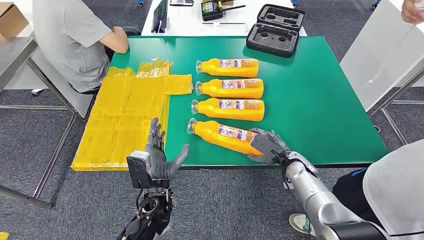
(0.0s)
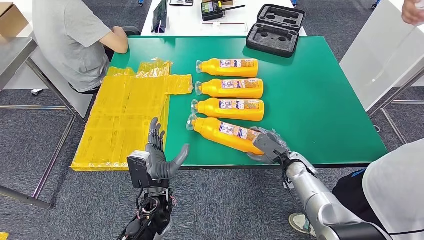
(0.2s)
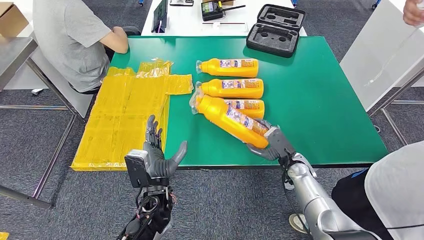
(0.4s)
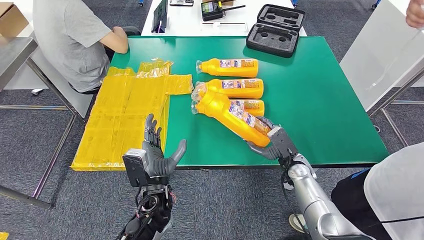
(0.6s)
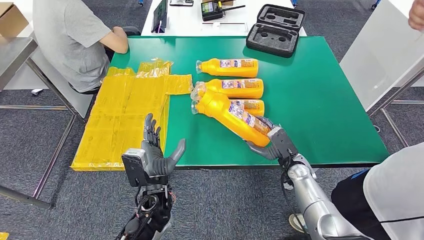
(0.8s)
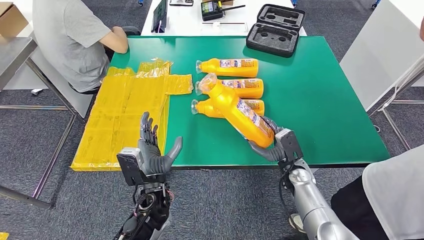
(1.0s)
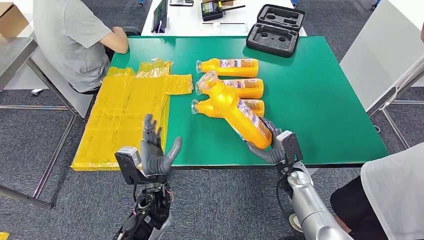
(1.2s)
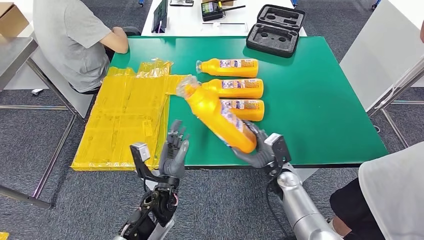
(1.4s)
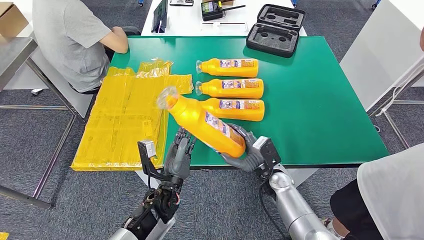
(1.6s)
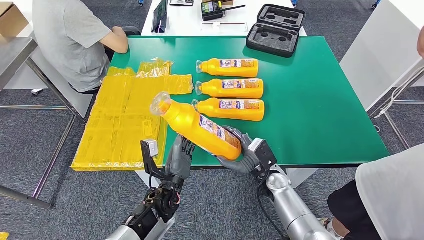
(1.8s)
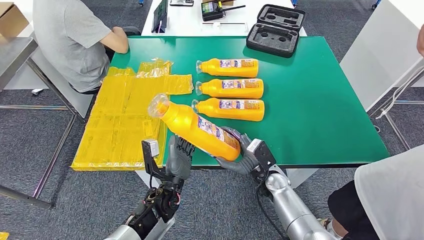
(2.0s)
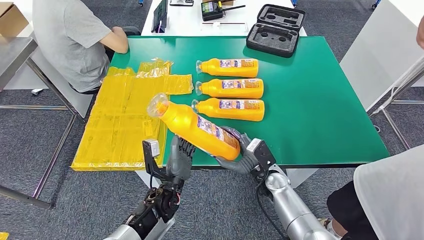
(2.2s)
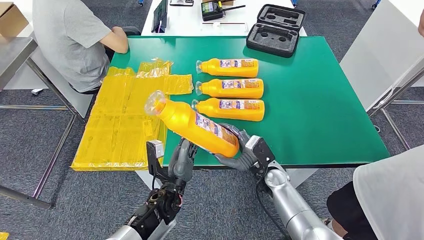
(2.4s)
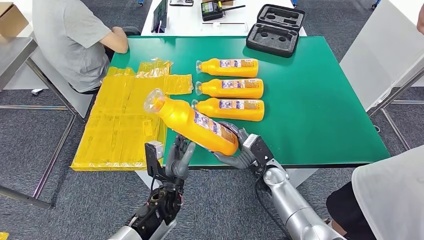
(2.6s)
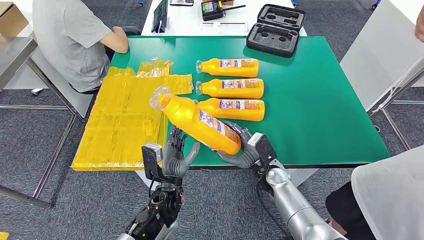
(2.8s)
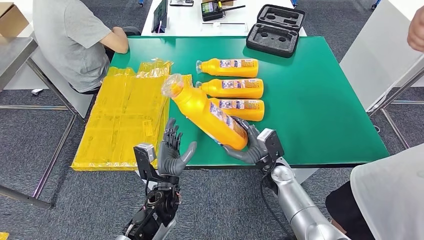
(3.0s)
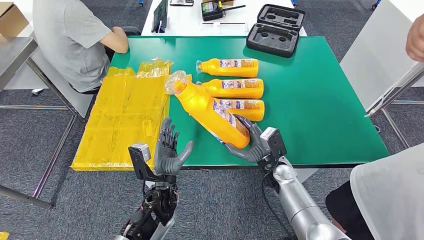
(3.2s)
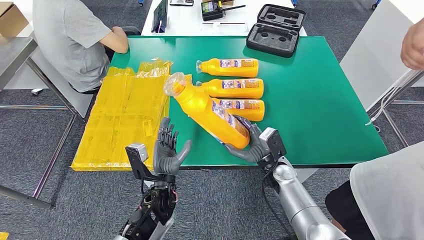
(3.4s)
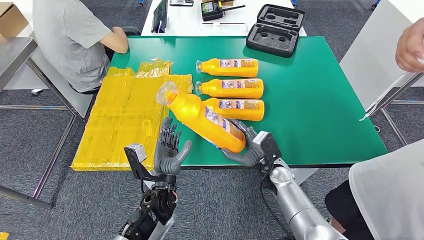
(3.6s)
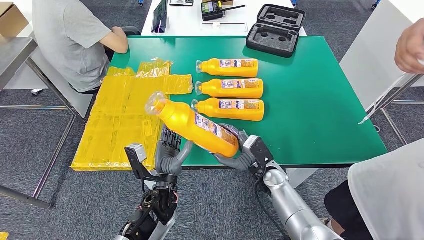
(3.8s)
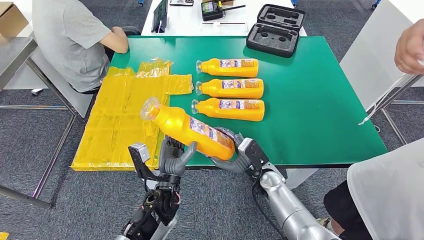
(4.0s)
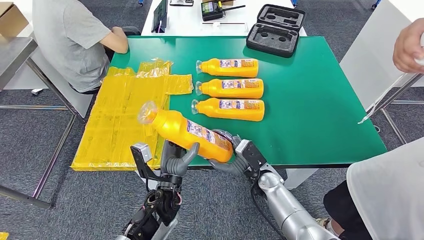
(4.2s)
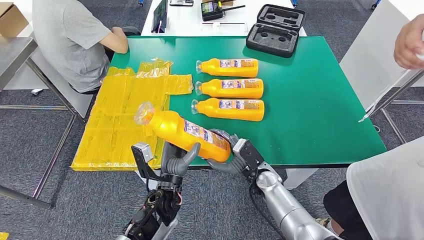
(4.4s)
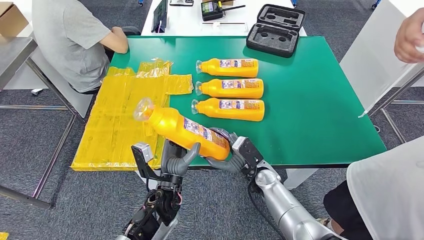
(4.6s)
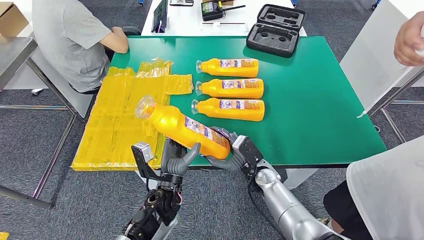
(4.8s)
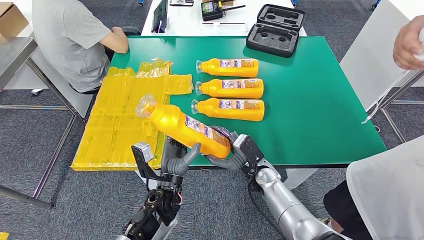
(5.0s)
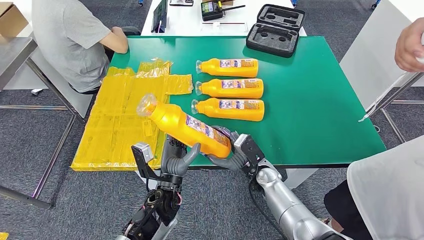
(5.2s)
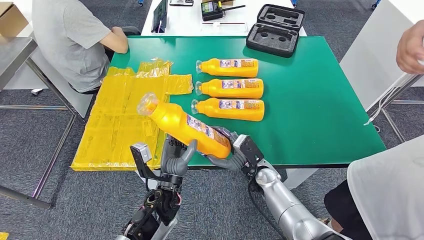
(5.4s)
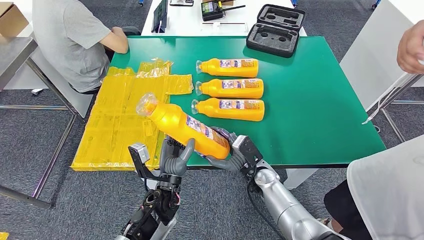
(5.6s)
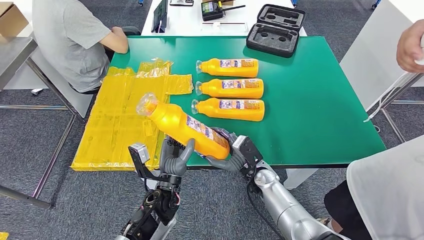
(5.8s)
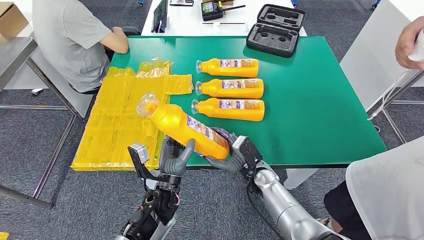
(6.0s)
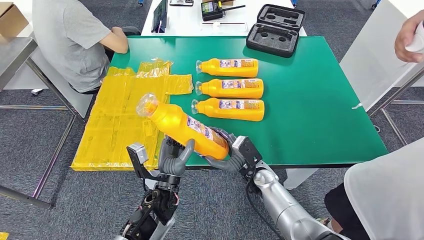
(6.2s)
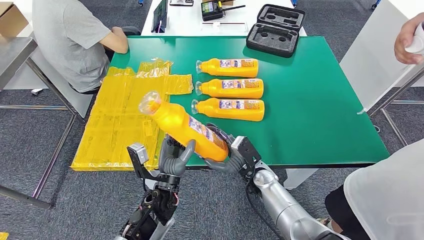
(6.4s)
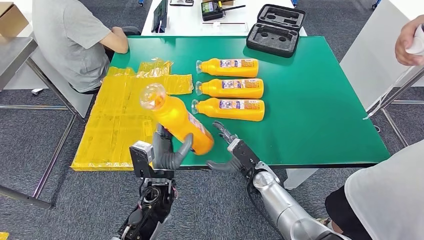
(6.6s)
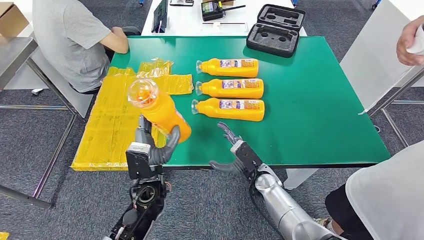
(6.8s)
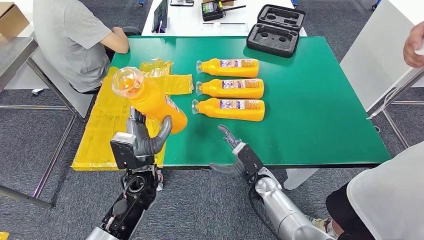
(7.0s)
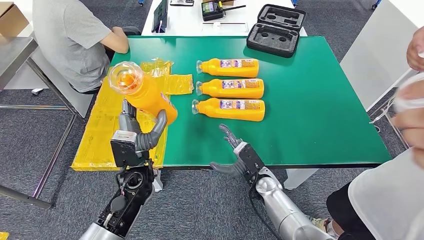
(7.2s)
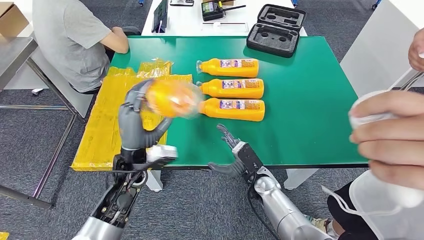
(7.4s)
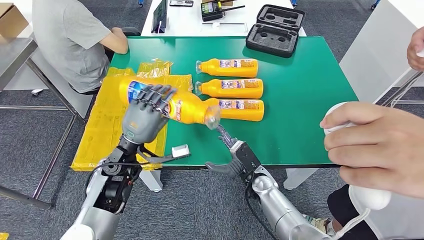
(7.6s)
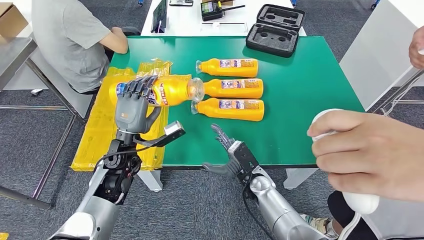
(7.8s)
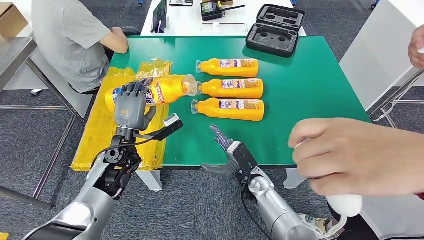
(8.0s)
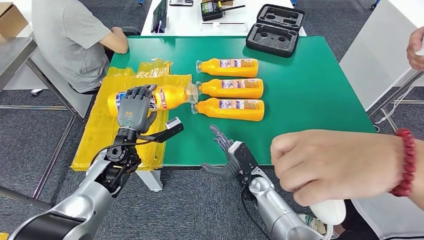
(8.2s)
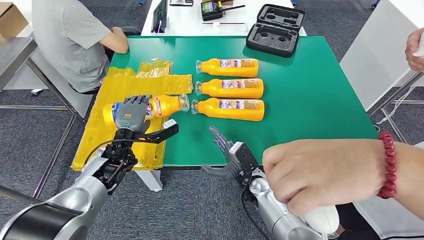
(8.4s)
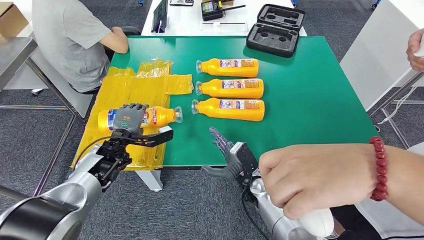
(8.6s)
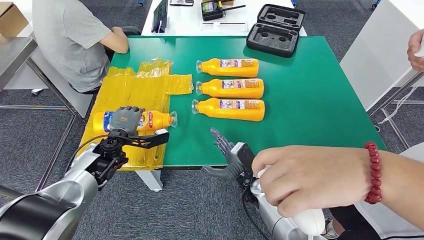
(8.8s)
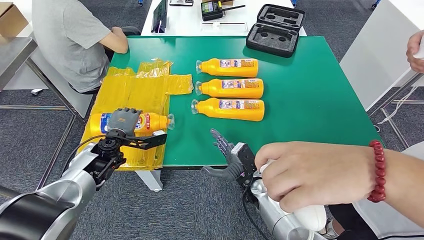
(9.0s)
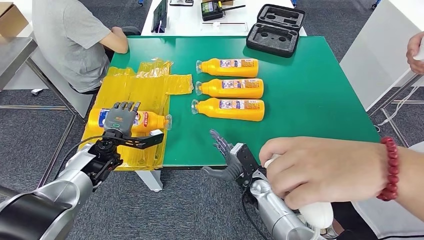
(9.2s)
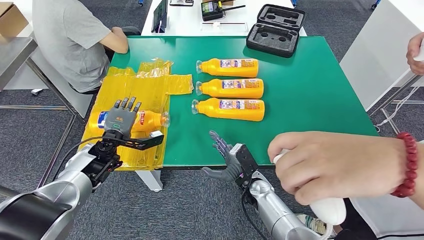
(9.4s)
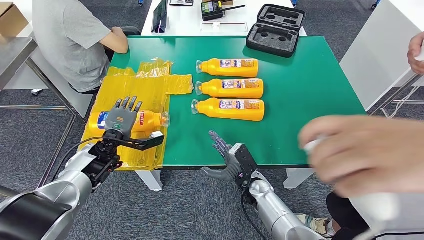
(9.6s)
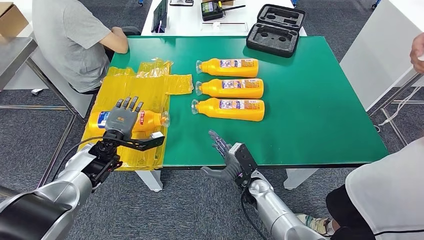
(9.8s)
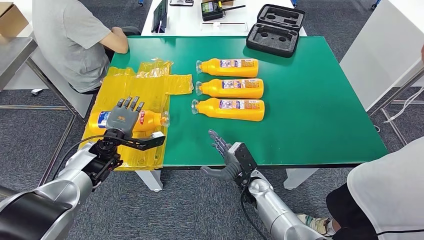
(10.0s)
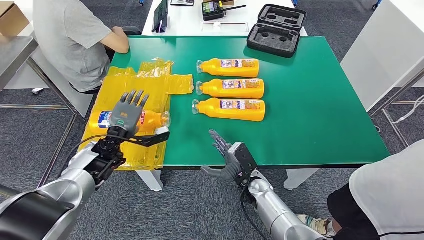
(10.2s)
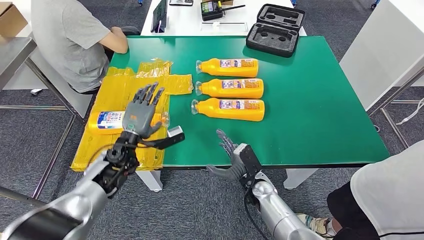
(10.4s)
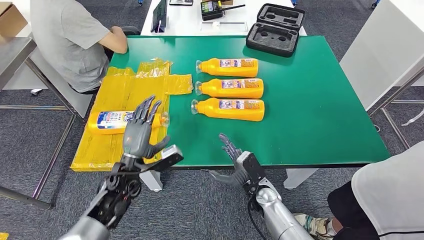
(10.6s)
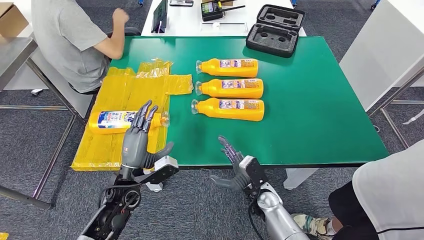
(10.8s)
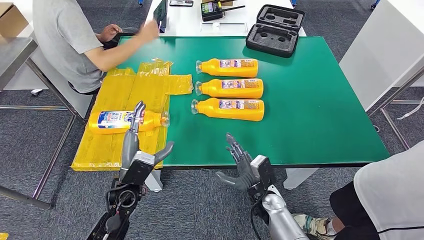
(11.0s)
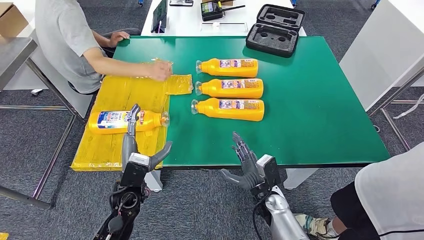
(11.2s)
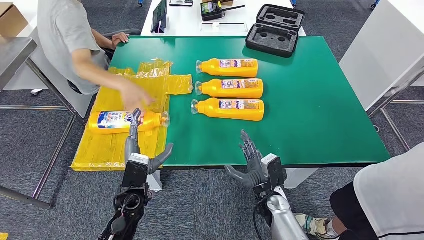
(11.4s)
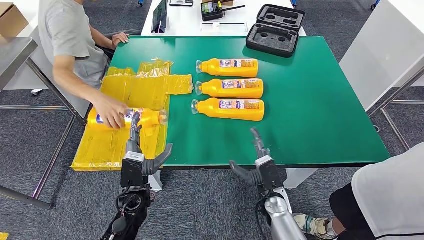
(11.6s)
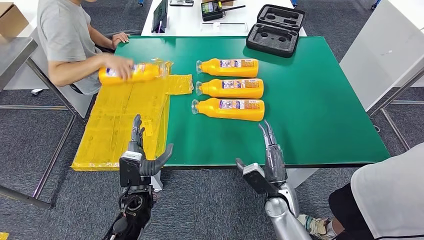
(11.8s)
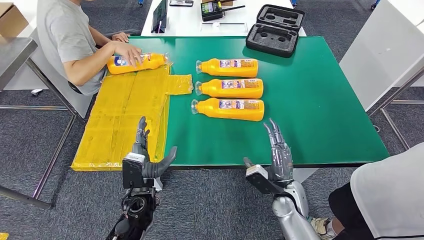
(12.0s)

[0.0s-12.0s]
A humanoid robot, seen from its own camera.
Step, 0.0s to 1.8s: Take the fast-moving consumer goods bottle from the table.
Step, 2.0s to 9.0s: Flip the fast-moving consumer goods bottle to the front side.
1.6s to 4.4s: There are only small adjustments of the hands.
4.4s to 6.0s: Both hands stay put.

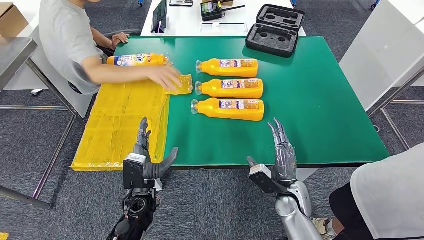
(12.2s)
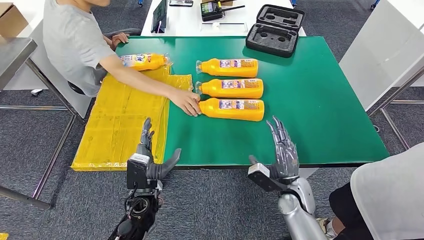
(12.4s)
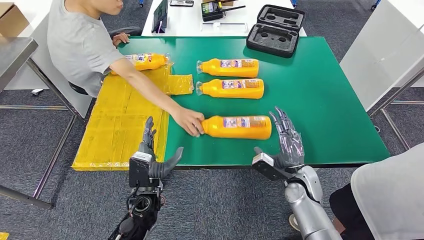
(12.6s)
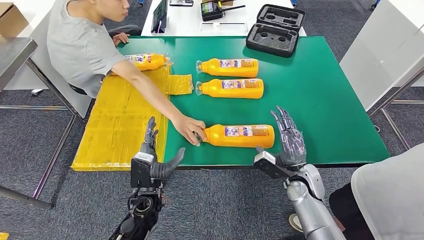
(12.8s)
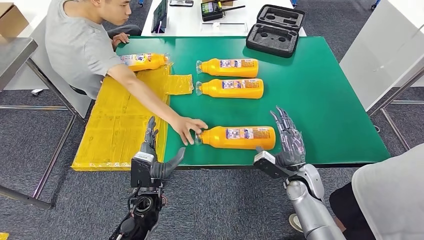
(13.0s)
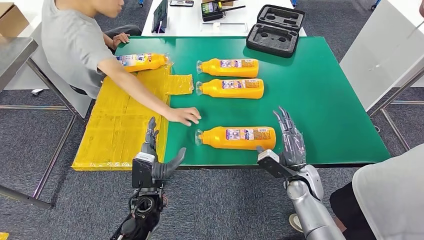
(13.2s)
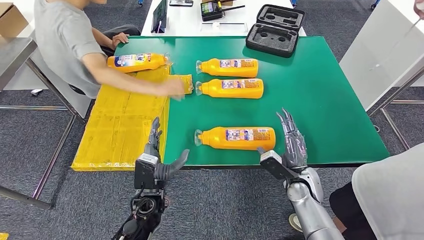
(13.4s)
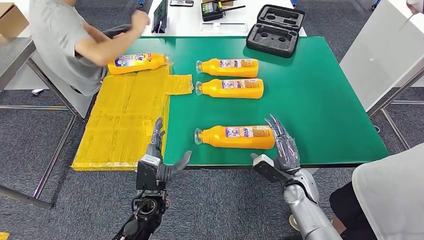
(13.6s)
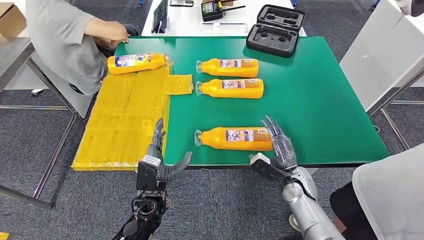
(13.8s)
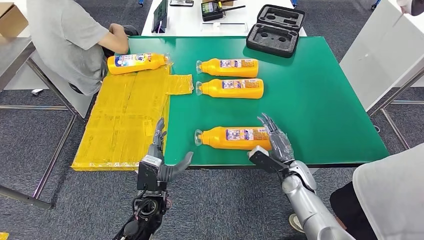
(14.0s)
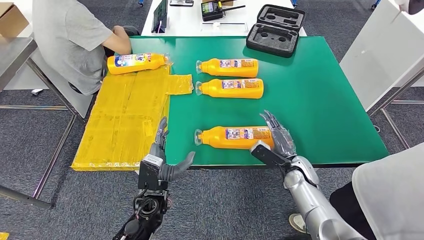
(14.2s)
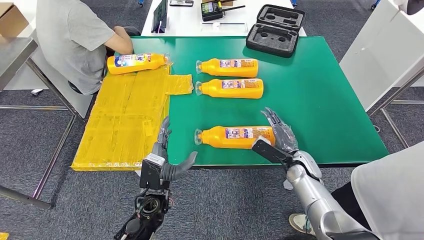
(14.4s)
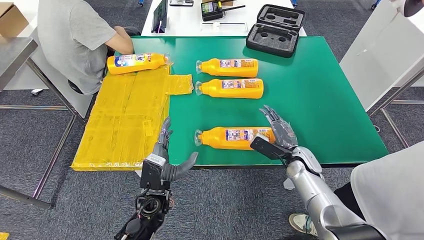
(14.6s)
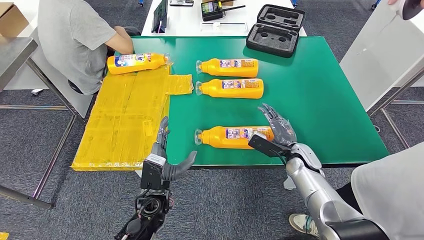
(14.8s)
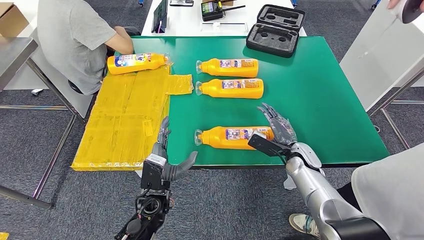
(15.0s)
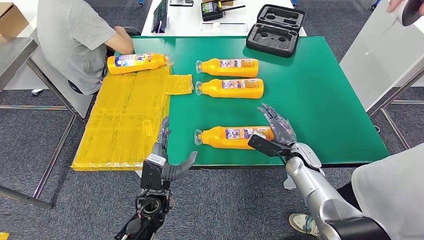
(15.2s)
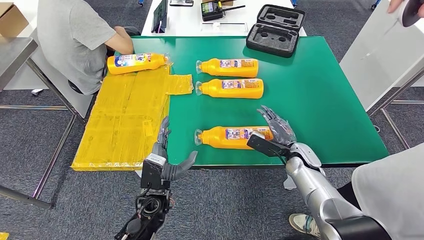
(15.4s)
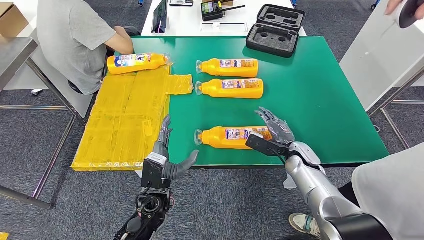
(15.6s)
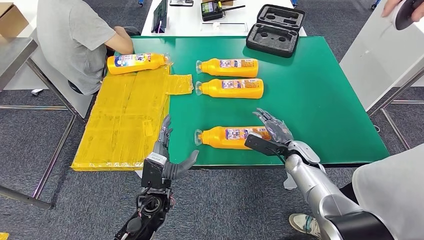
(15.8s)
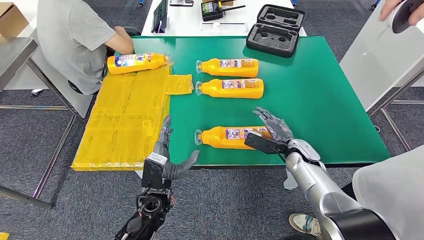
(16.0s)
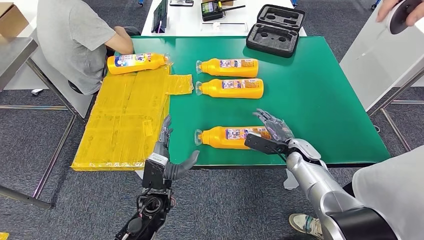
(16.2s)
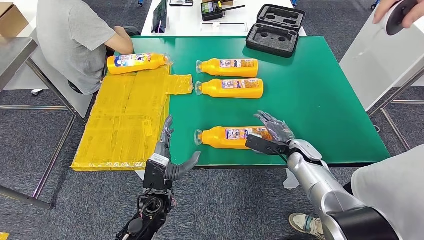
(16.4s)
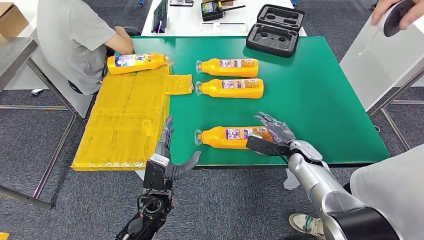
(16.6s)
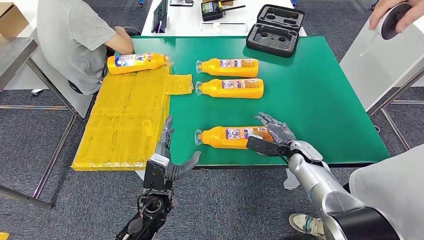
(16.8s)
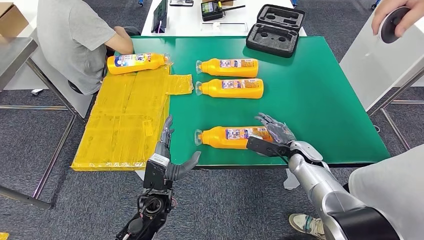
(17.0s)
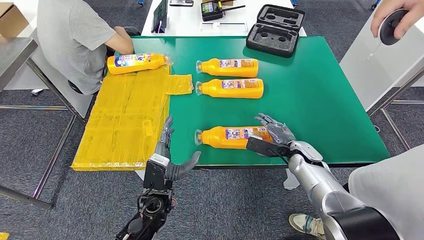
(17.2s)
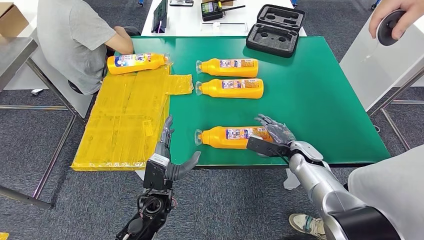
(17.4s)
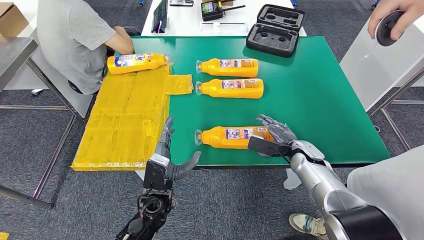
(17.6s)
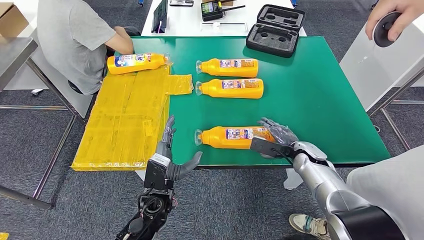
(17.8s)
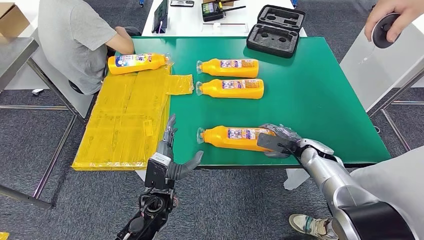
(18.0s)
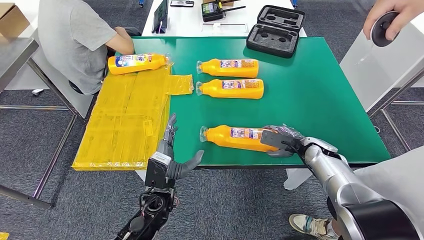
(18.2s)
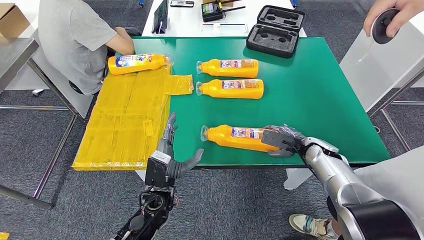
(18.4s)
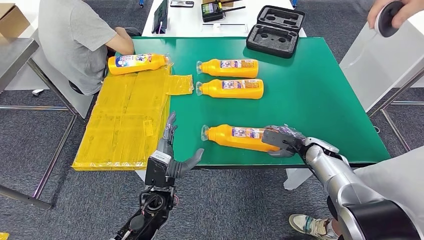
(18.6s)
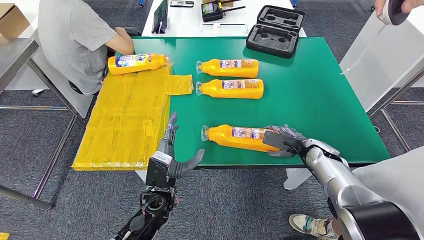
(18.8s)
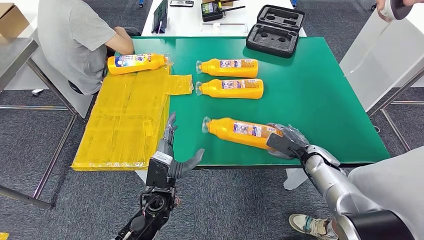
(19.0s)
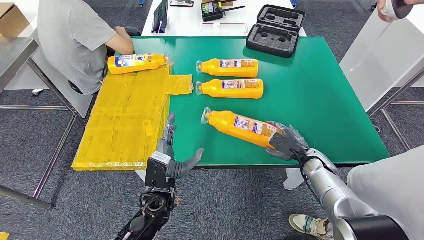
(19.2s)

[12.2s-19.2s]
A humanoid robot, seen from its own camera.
12.2s to 13.6s: The right hand shifts by about 5 cm.
13.6s to 15.0s: The right hand shifts some 5 cm forward.
15.0s to 16.4s: There are only small adjustments of the hands.
16.4s to 17.8s: There are only small adjustments of the hands.
